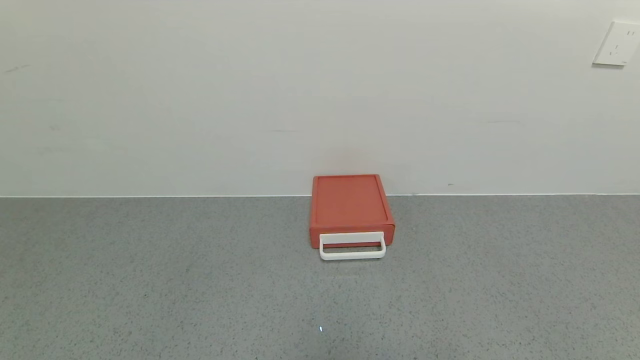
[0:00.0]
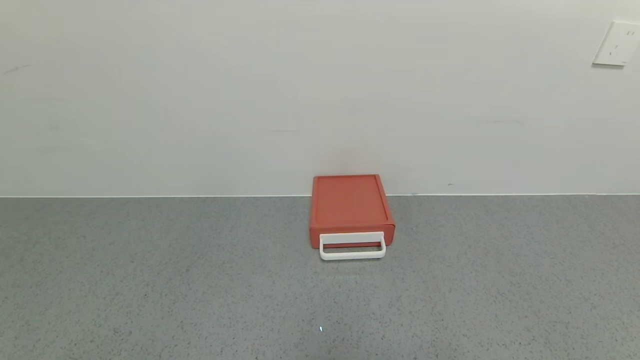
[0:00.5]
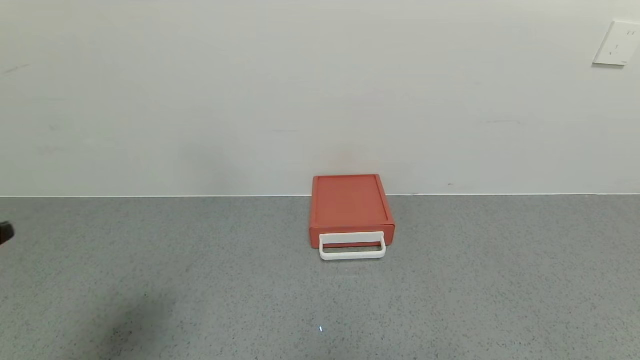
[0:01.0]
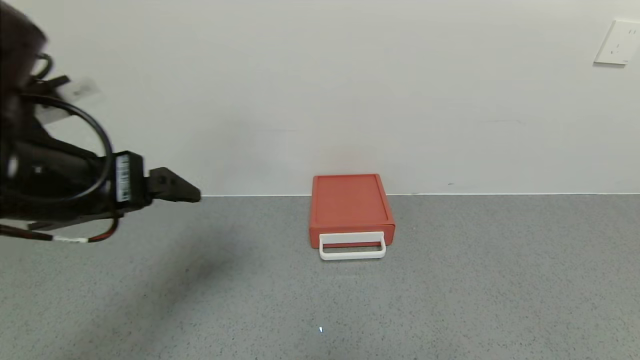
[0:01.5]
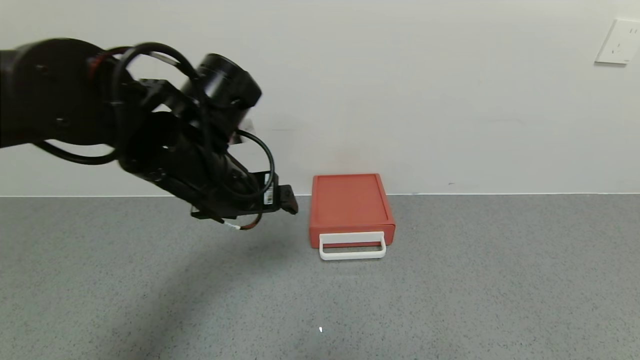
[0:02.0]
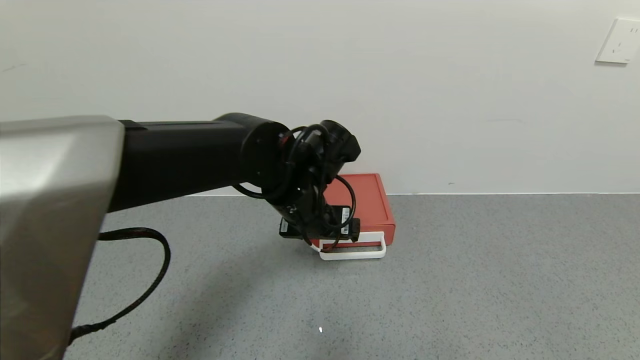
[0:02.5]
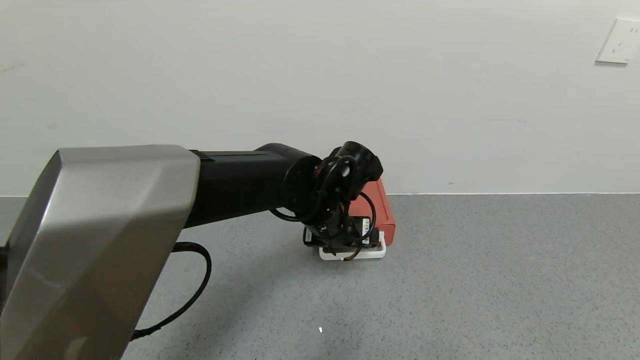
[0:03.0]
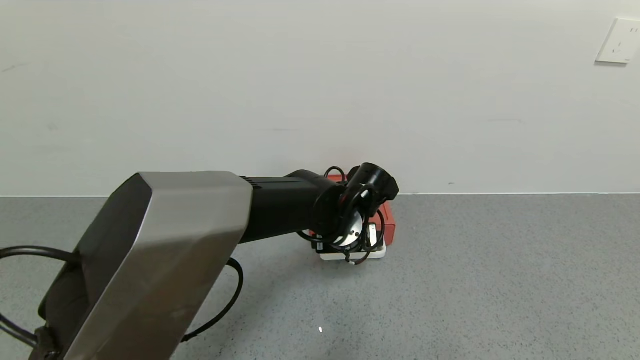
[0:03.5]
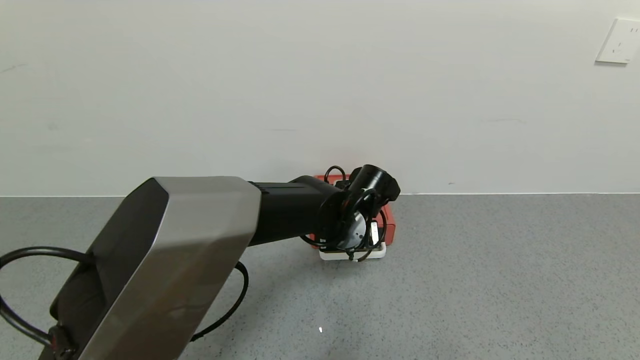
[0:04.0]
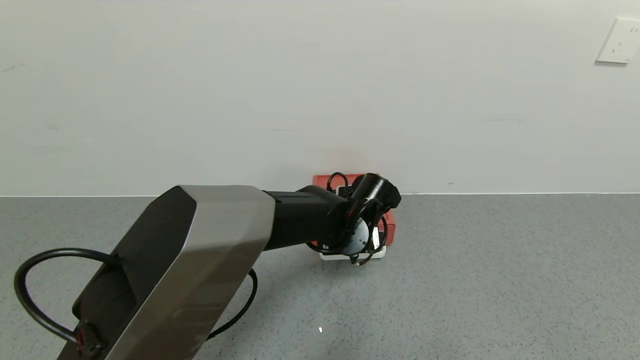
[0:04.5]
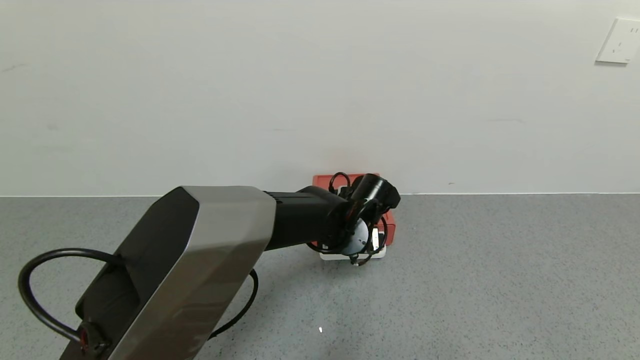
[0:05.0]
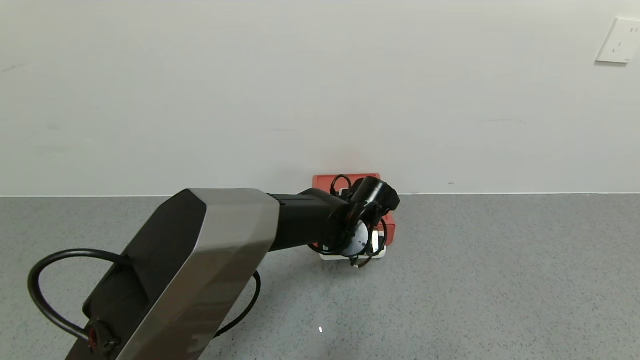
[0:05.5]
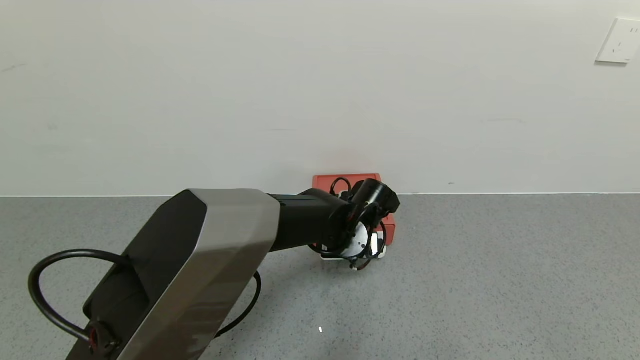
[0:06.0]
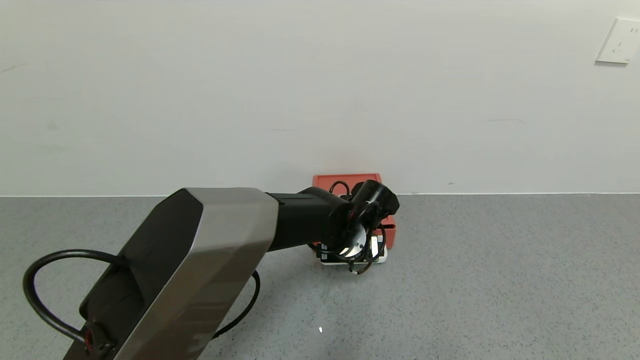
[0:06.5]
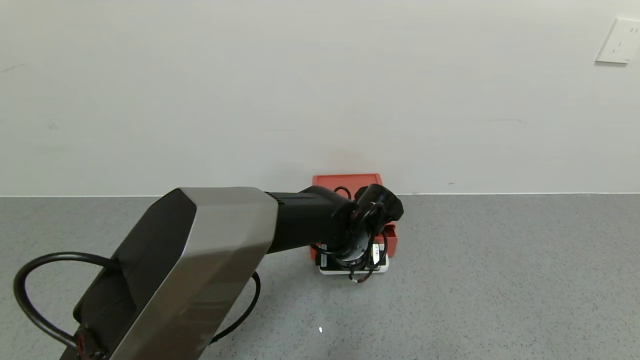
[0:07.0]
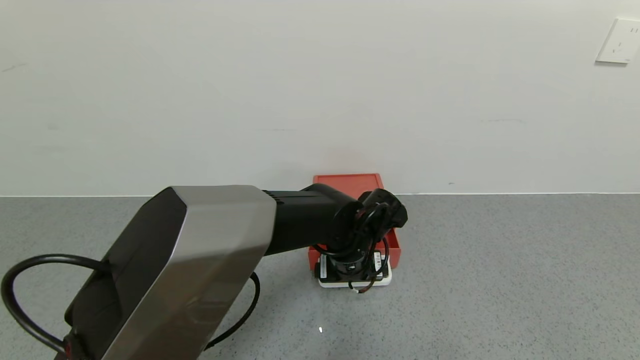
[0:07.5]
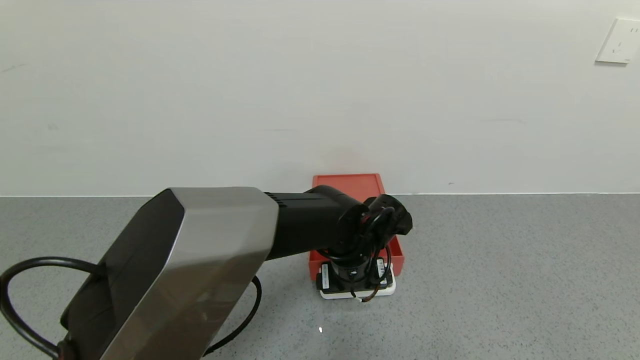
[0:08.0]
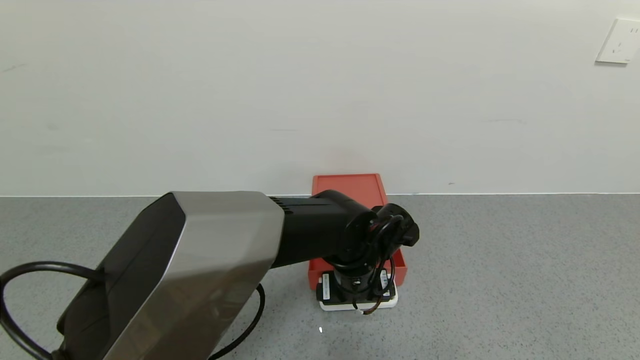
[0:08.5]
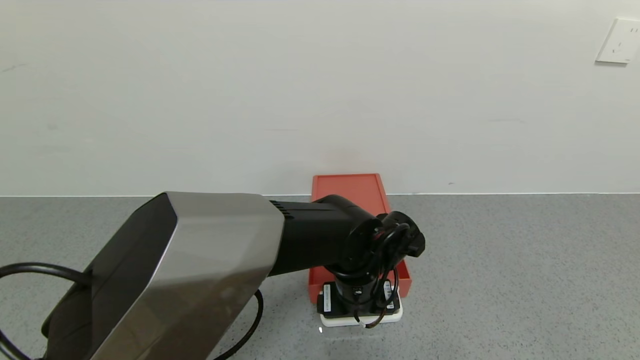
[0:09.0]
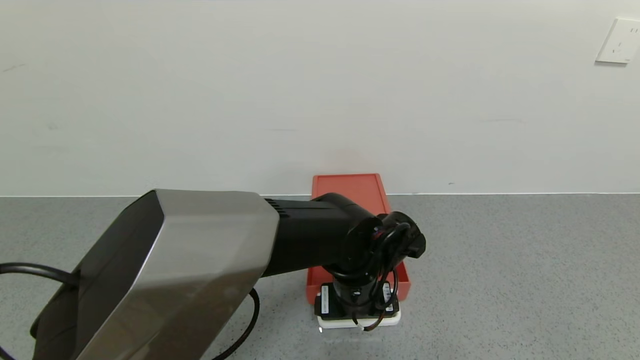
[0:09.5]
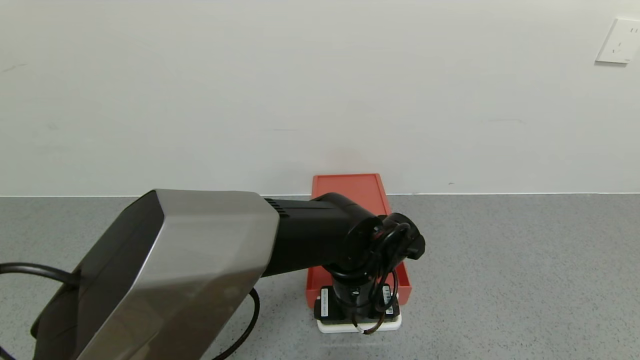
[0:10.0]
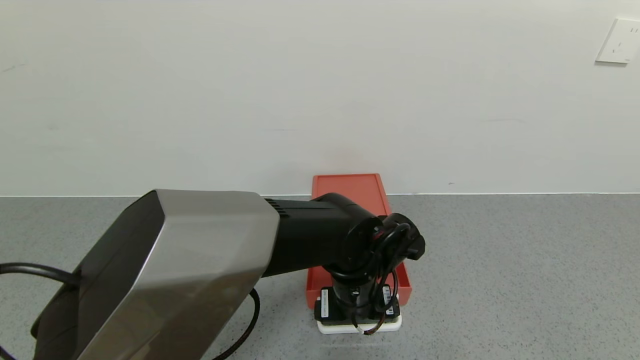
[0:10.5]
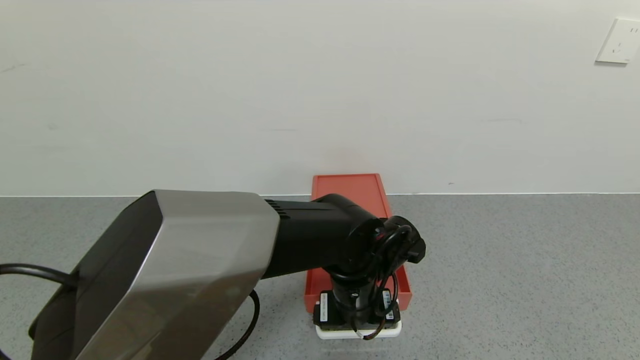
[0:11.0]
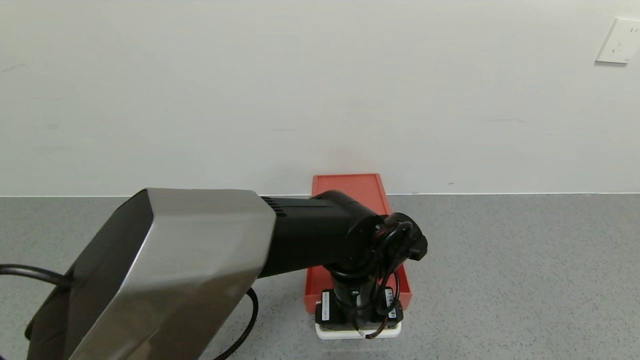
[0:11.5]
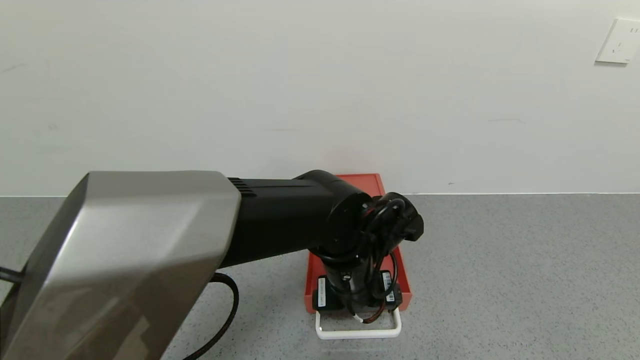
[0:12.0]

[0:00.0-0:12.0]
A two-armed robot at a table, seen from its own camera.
Task of the whole recording: use the gripper to open the drawer and close the red drawer.
0:00.0 to 0:02.0: The left gripper goes approximately 40 cm forward, upward and to the right.
0:02.0 to 0:04.0: The left gripper heads to the right, downward and forward, covering roughly 20 cm.
0:04.0 to 0:06.0: The grippers stay close to where they were, moving slightly.
0:06.0 to 0:08.0: The left gripper changes place by roughly 5 cm.
0:08.0 to 0:12.0: The grippers stay close to where they were, moving slightly.

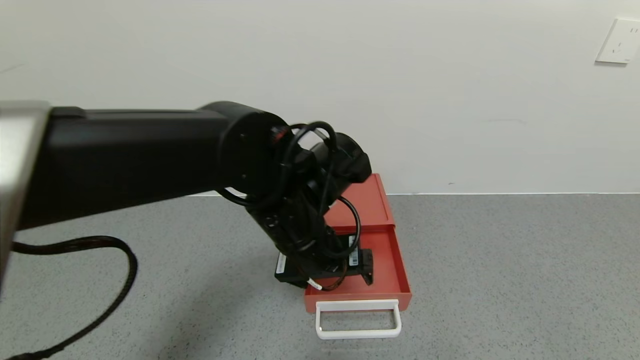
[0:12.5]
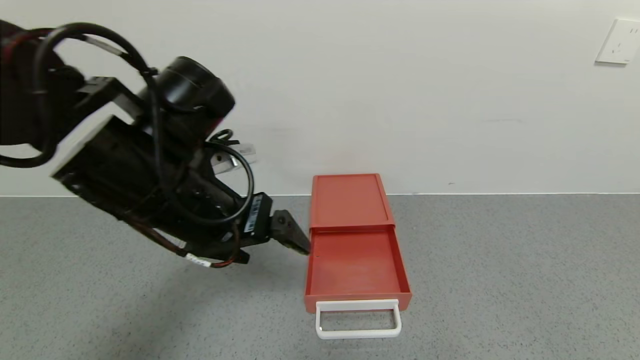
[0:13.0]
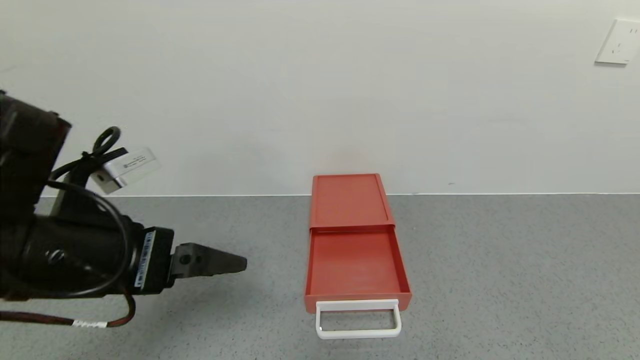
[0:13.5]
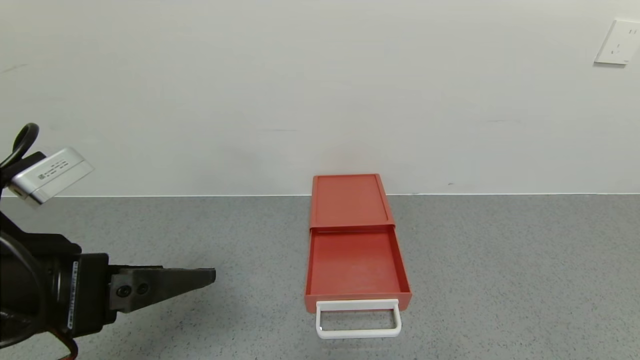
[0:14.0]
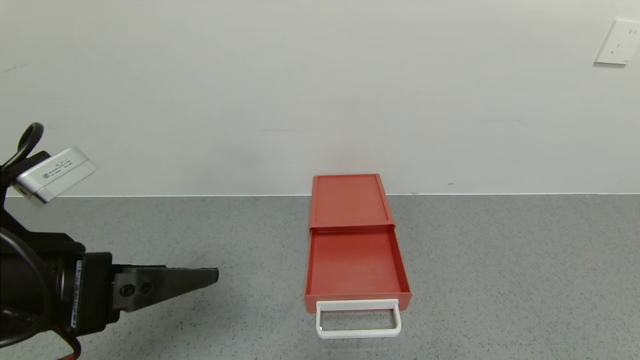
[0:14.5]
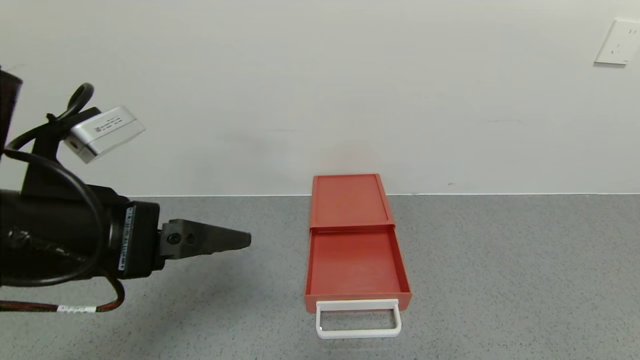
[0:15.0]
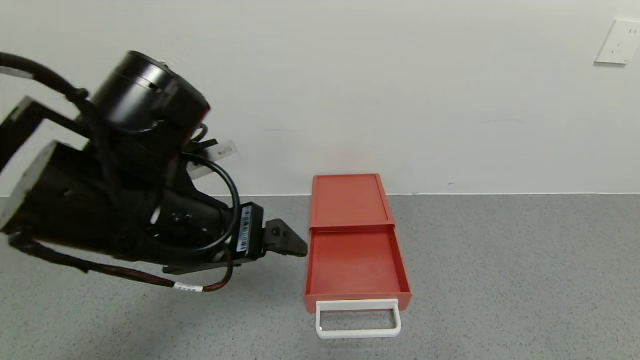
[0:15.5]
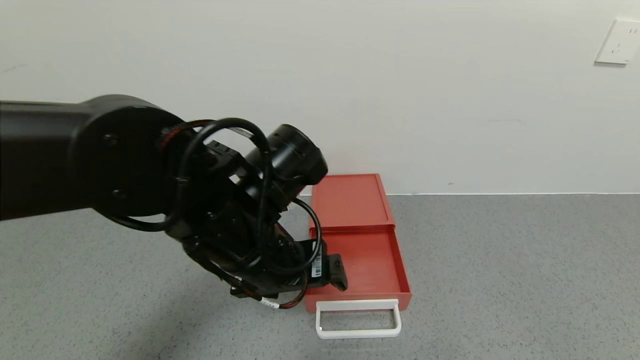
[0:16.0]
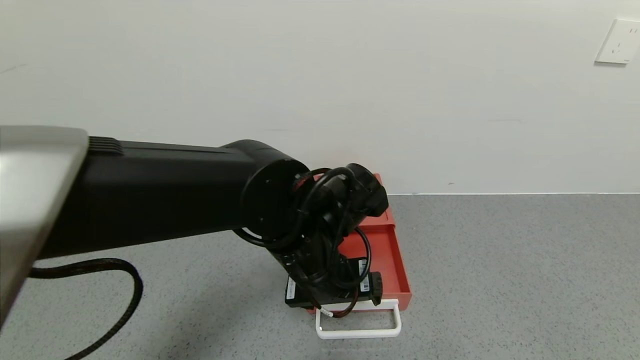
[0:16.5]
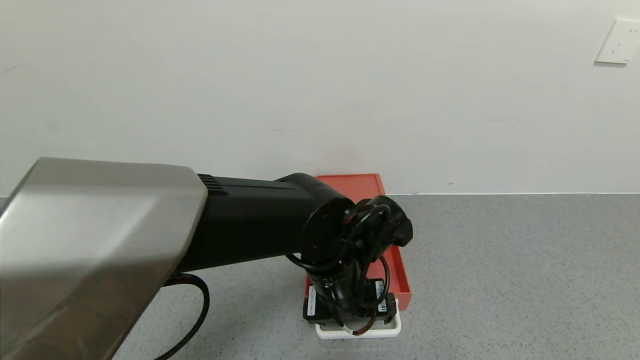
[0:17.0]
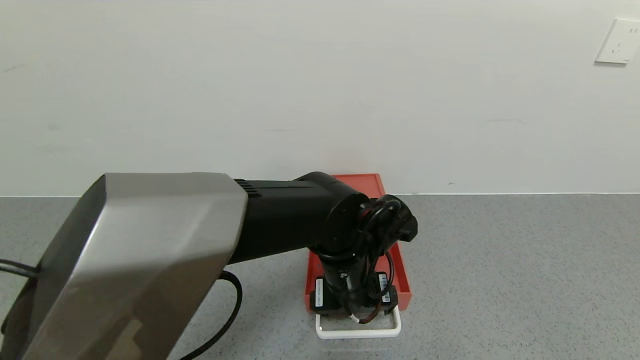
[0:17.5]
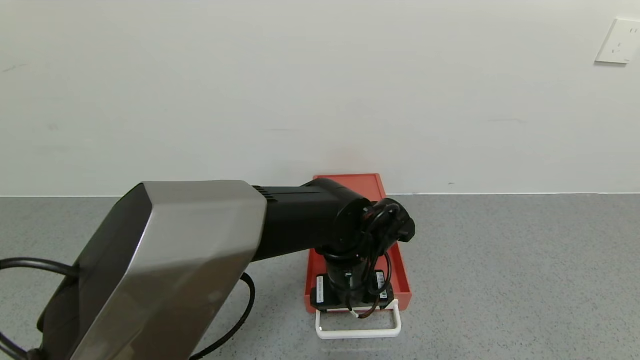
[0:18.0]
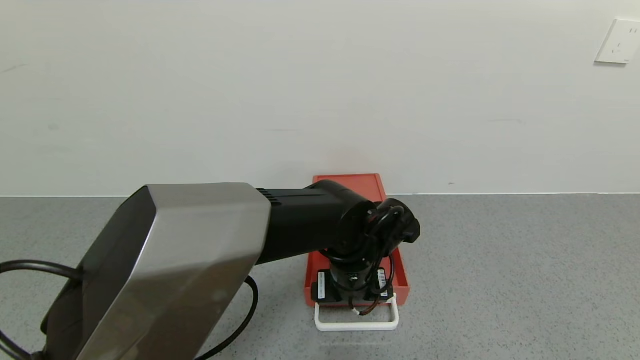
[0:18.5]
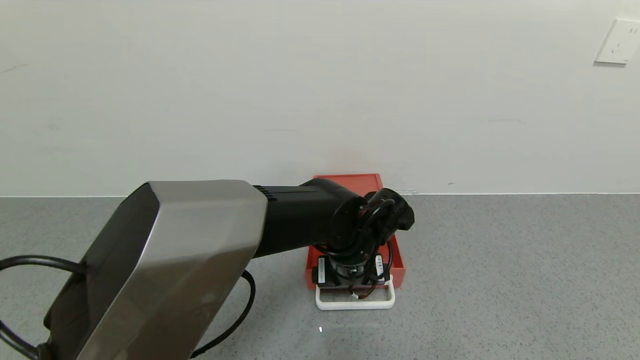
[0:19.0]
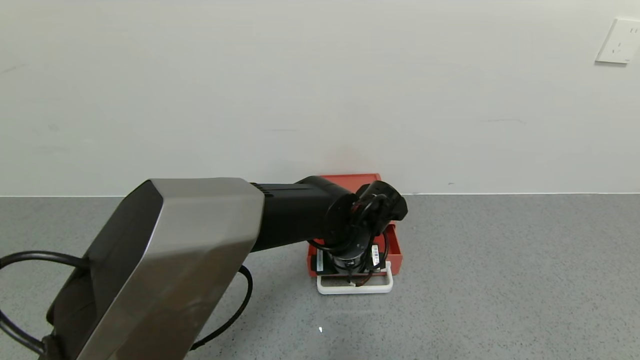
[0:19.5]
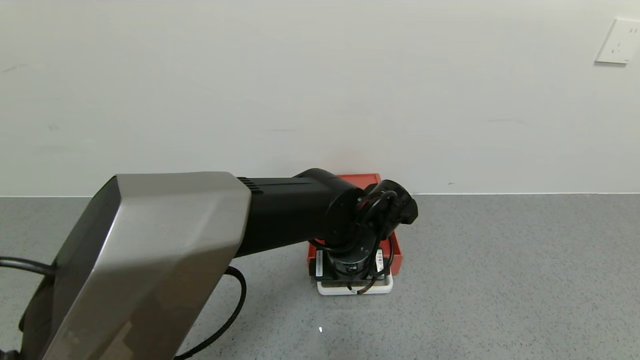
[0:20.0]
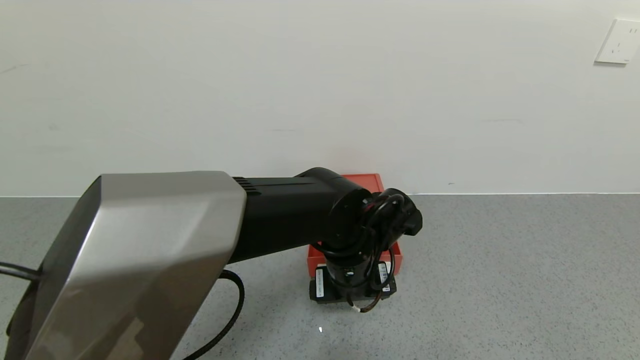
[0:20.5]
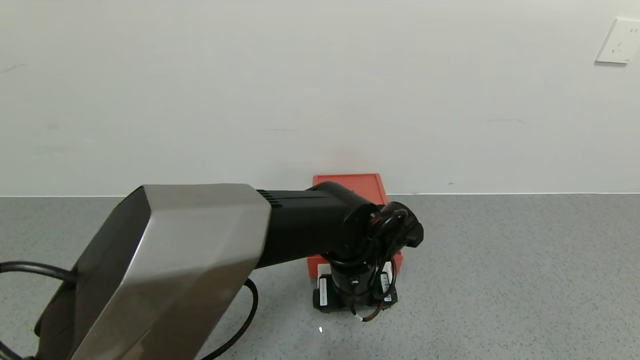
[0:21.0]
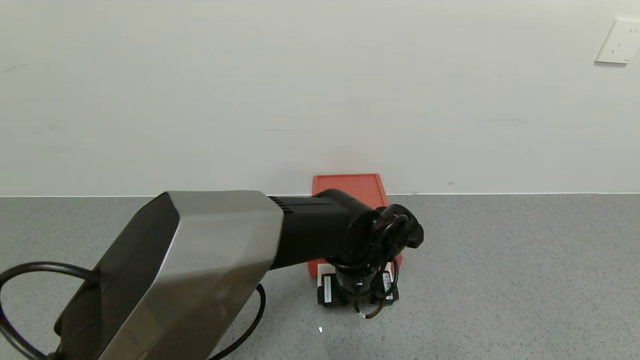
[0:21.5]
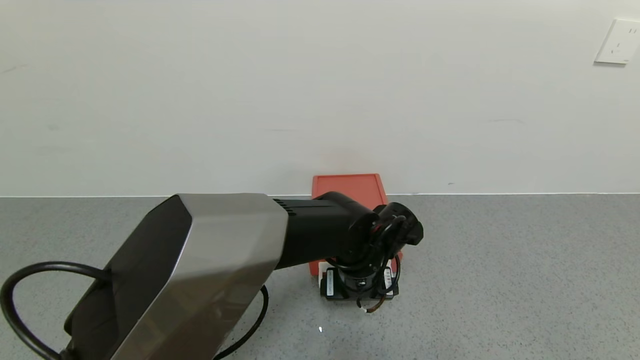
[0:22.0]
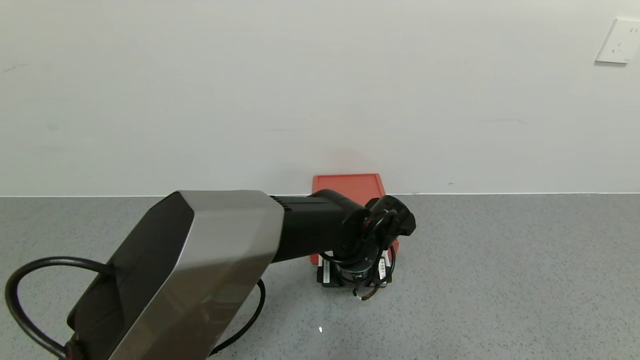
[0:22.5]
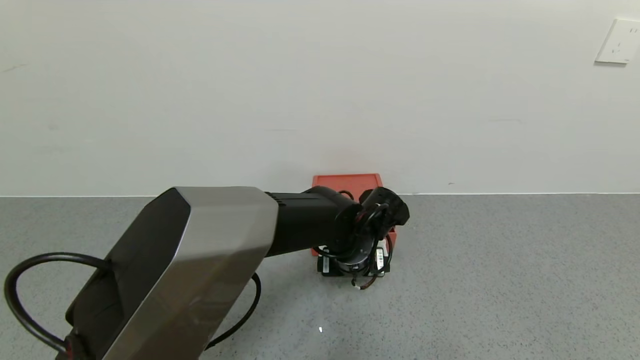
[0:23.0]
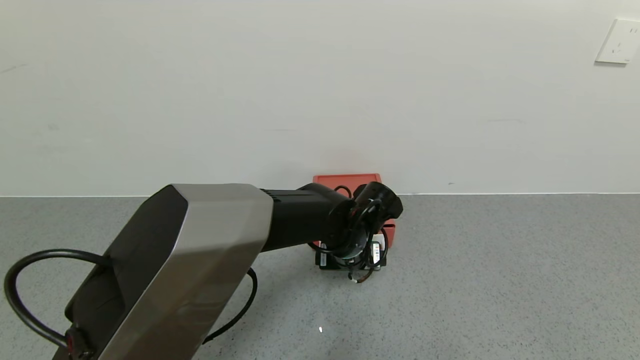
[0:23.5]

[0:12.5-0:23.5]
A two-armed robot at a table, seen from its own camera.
Task of the whole recording: use the gripper to open the drawer and close the red drawer.
0:12.5 to 0:14.5: The left gripper shifts approximately 25 cm to the left and backward.
0:14.5 to 0:16.0: The left gripper travels to the right and forward by about 20 cm.
0:16.0 to 0:18.0: The left gripper travels downward, to the right and forward by approximately 15 cm.
0:18.0 to 0:23.5: The grippers stay close to where they were, moving slightly.
